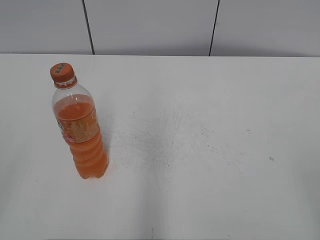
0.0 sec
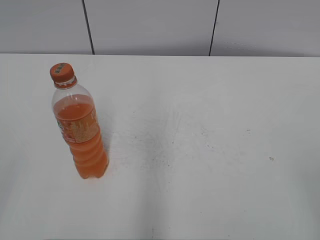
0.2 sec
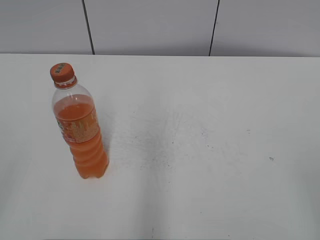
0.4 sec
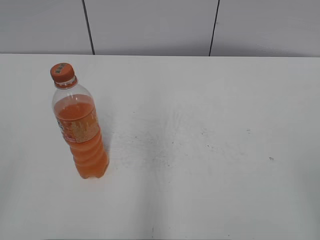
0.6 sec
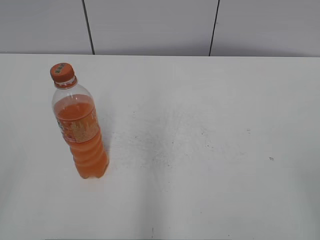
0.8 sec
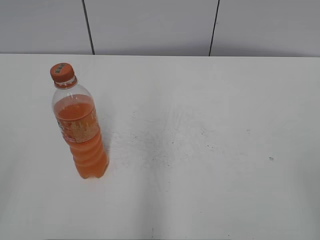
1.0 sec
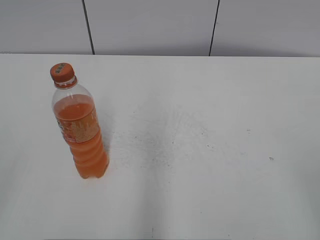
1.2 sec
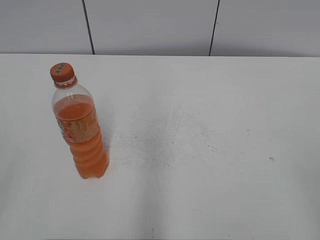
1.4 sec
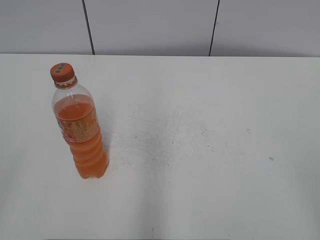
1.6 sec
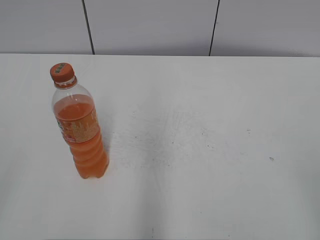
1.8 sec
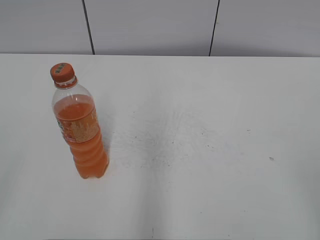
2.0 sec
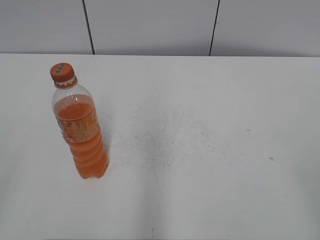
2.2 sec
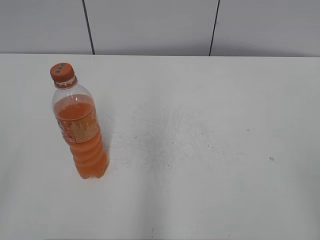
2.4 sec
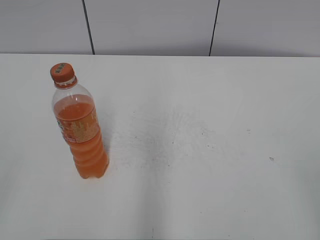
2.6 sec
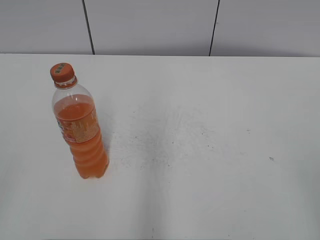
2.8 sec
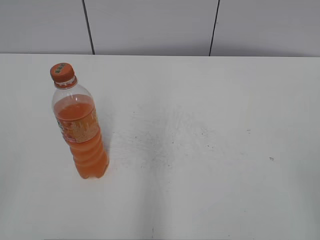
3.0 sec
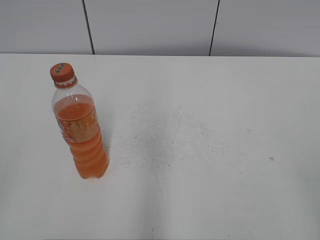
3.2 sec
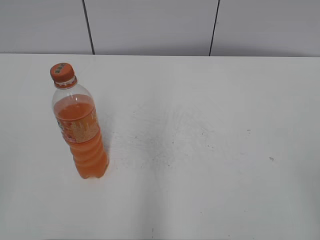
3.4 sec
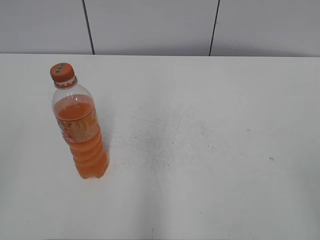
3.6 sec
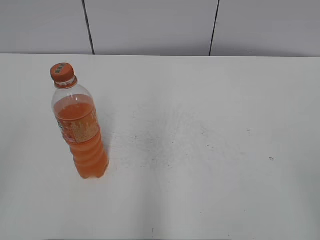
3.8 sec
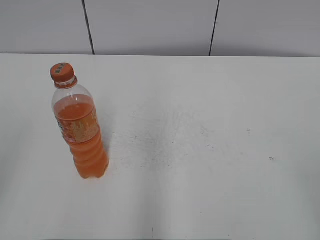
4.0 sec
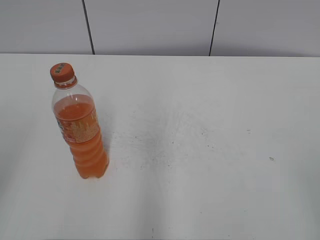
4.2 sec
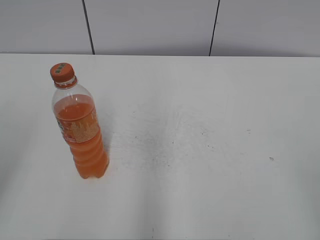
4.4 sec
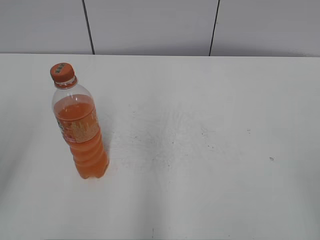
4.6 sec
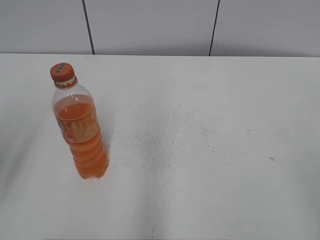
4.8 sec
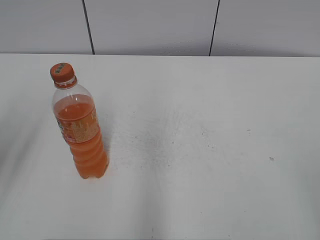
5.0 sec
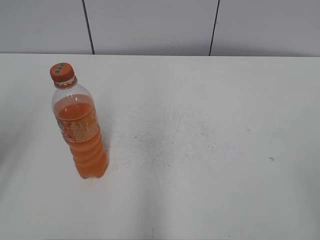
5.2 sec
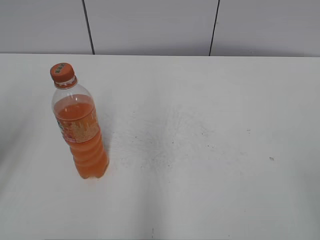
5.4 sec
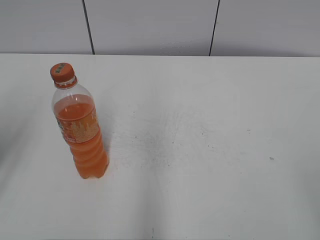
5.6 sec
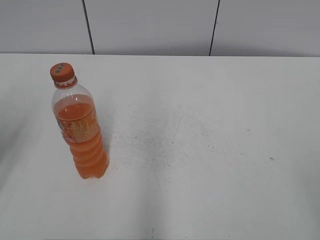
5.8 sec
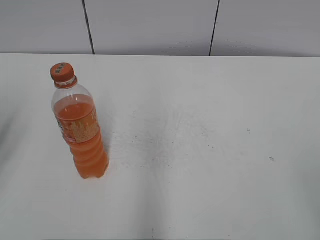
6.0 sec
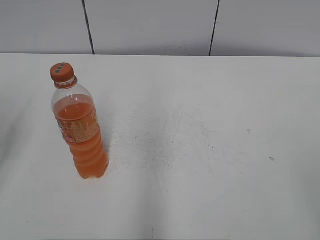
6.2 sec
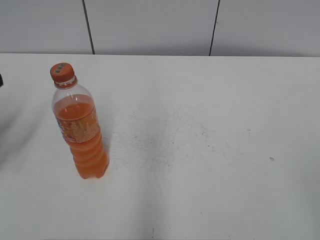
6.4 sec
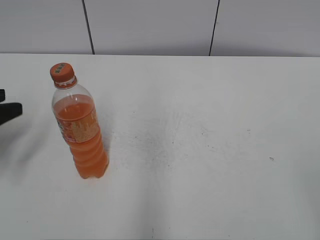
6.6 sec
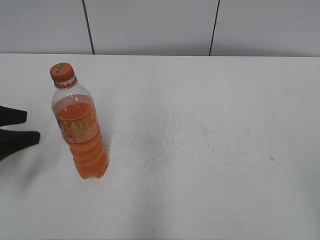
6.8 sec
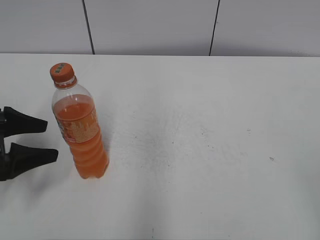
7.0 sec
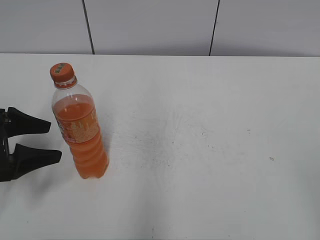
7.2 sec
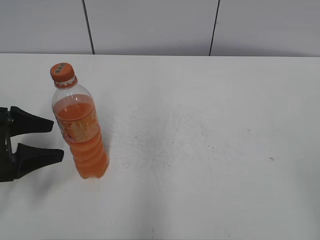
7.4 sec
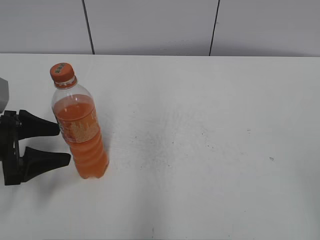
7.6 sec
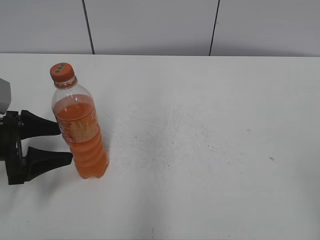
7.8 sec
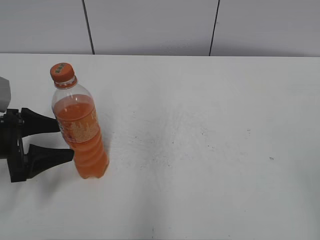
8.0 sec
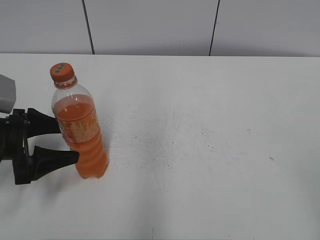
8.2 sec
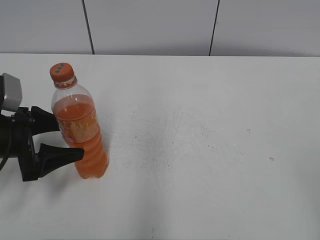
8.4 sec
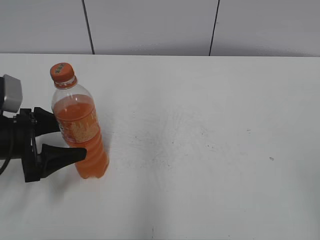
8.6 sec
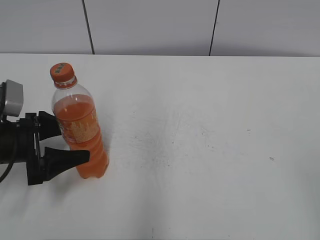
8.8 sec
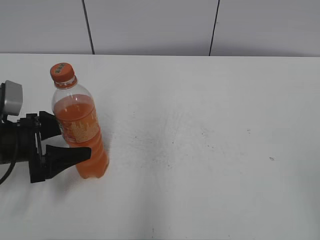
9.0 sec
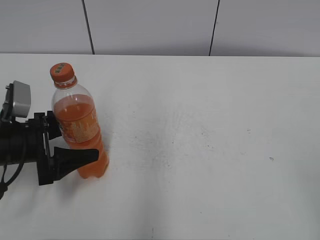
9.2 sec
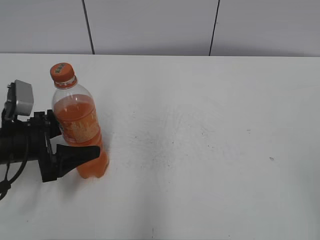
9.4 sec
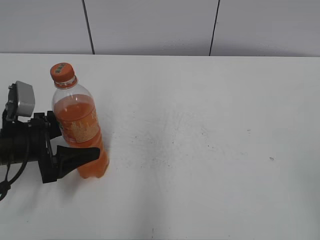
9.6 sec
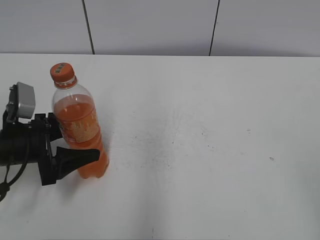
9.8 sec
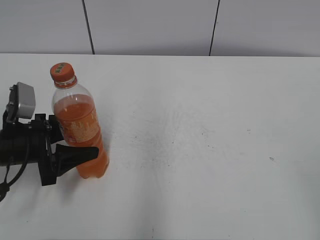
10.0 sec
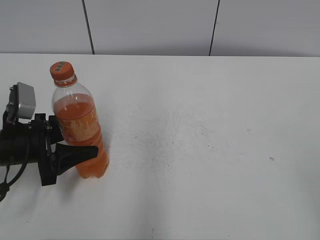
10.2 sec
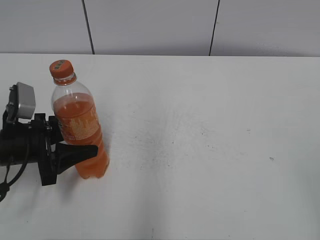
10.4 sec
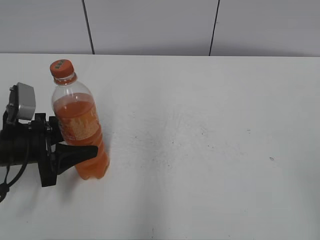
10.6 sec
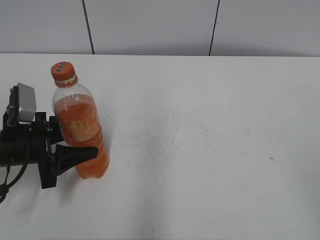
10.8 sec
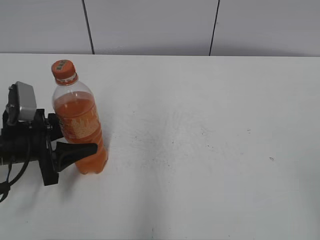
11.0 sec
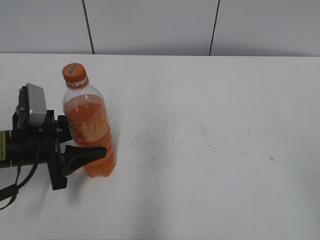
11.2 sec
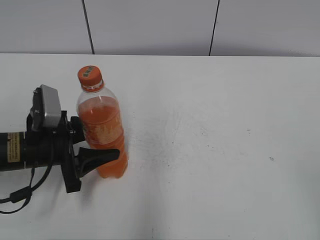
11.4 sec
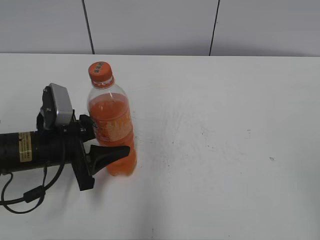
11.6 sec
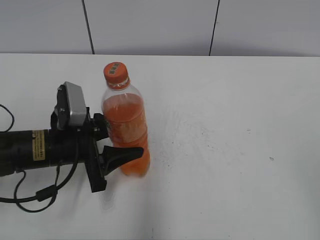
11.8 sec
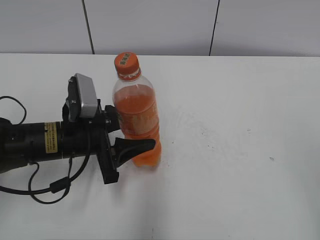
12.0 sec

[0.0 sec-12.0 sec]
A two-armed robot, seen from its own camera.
Step, 0.0 sec to 10.4 sec: Grab the Mirinda with the left hand.
1.6 sec to 3.0 sec: Both grippers stay put.
6.0 sec to 7.6 sec: The left gripper moves downward and to the right, roughly 10 cm, and opens its fingers.
7.6 sec to 9.0 sec: The grippers stay close to where they were, moving slightly.
9.0 sec to 10.4 sec: The left gripper closes up.
10.4 sec to 12.0 sec: The left gripper goes roughly 10 cm to the right.

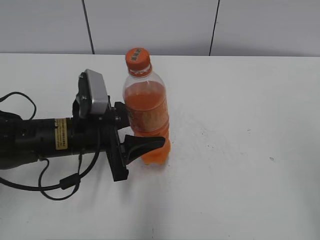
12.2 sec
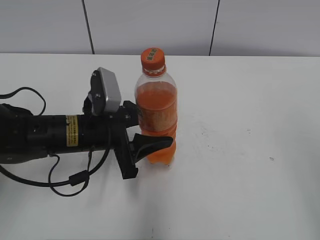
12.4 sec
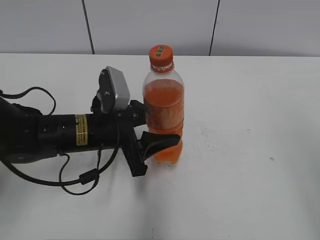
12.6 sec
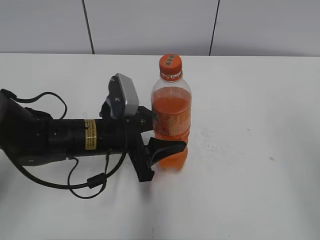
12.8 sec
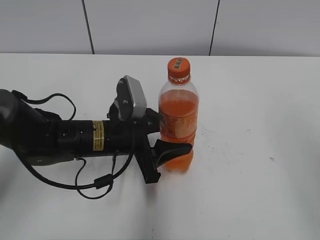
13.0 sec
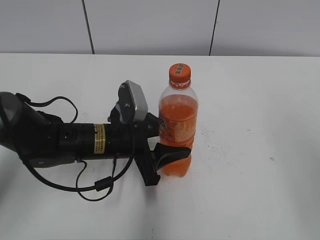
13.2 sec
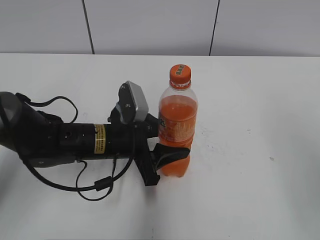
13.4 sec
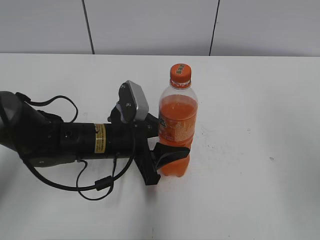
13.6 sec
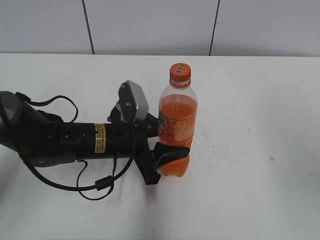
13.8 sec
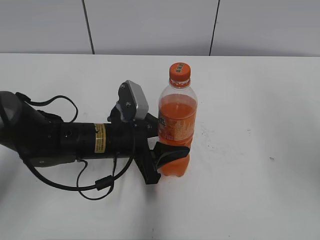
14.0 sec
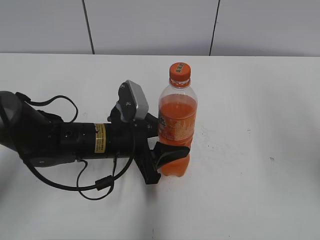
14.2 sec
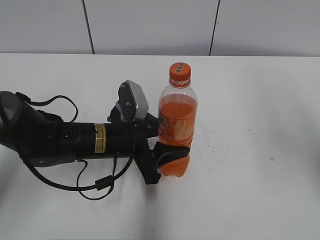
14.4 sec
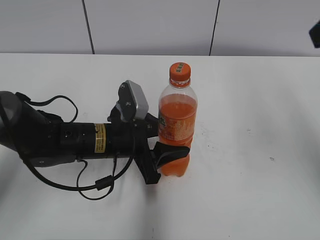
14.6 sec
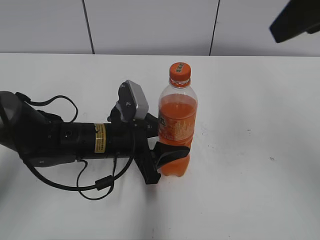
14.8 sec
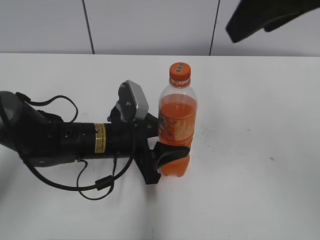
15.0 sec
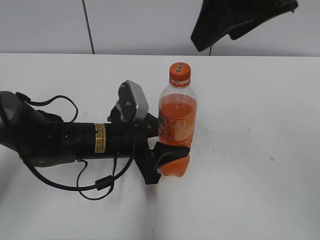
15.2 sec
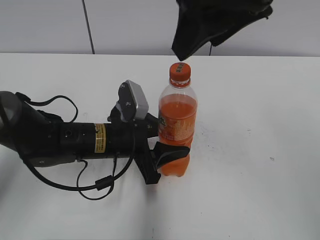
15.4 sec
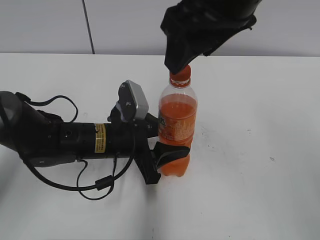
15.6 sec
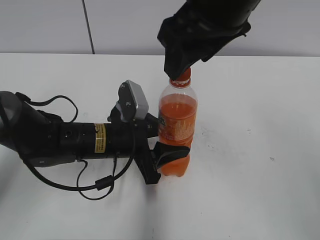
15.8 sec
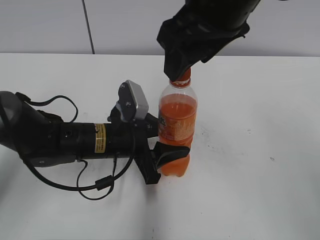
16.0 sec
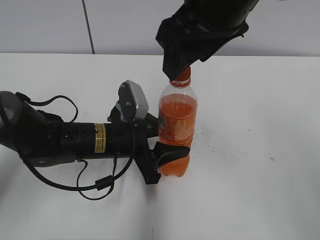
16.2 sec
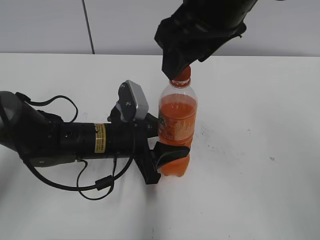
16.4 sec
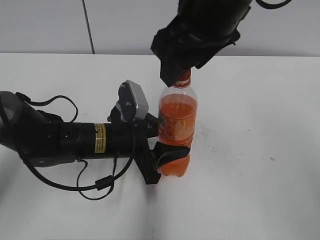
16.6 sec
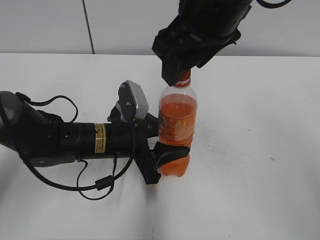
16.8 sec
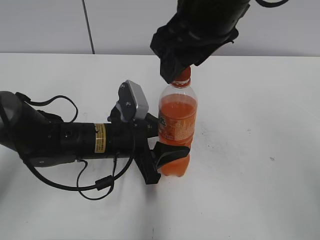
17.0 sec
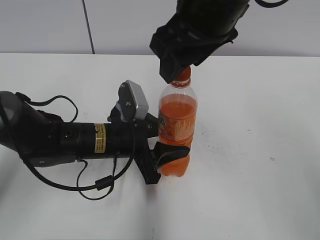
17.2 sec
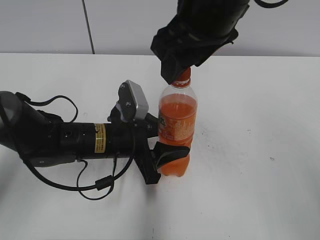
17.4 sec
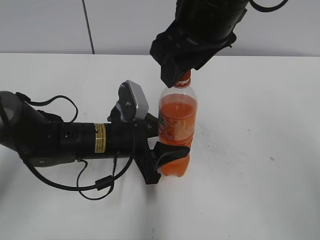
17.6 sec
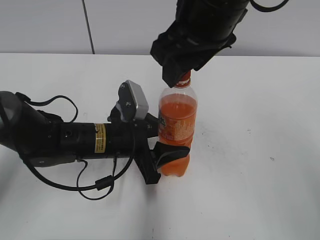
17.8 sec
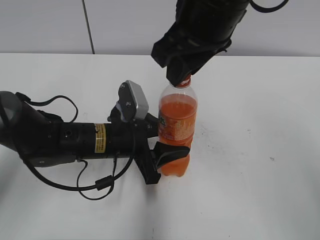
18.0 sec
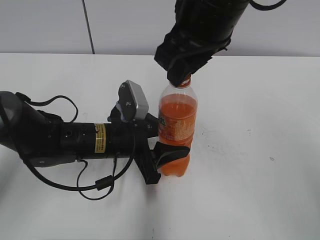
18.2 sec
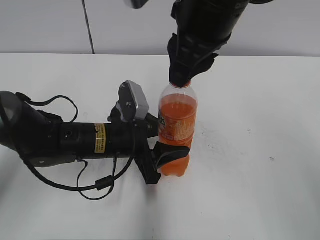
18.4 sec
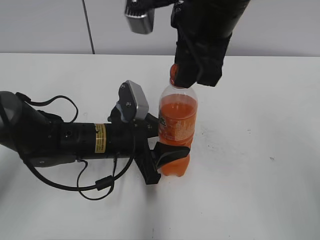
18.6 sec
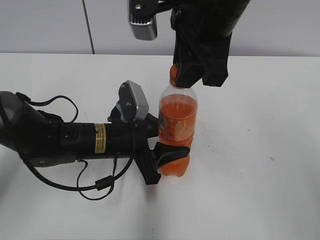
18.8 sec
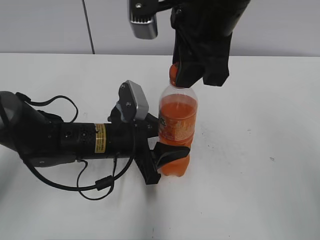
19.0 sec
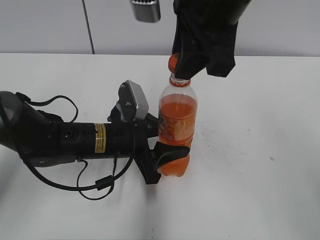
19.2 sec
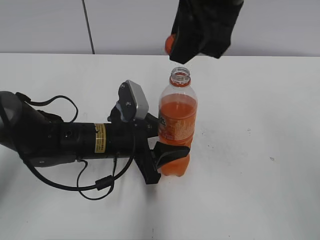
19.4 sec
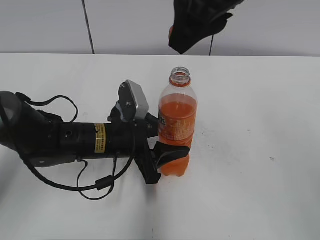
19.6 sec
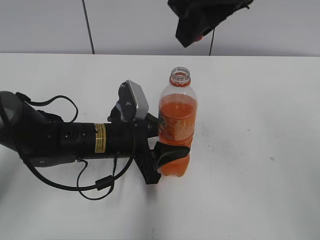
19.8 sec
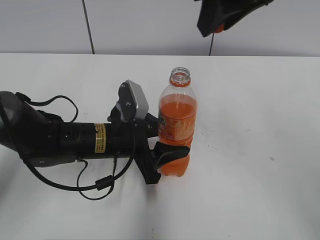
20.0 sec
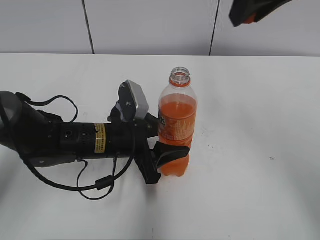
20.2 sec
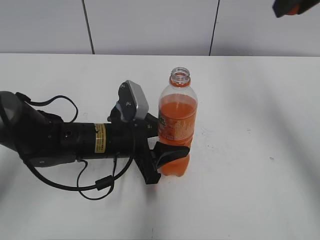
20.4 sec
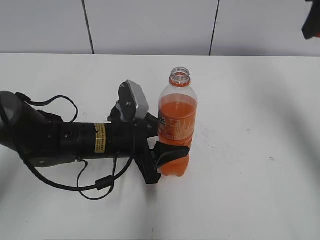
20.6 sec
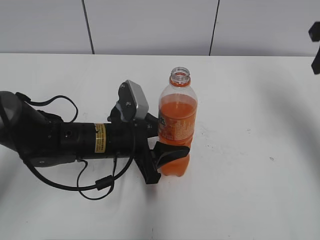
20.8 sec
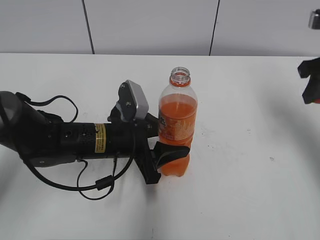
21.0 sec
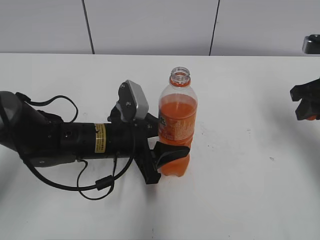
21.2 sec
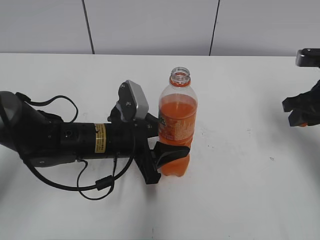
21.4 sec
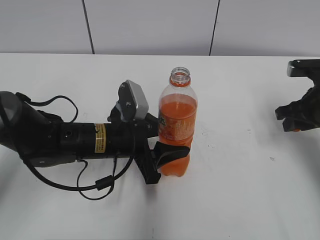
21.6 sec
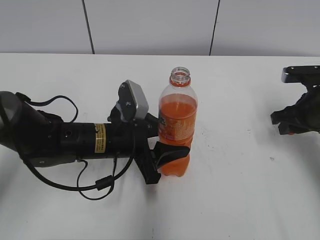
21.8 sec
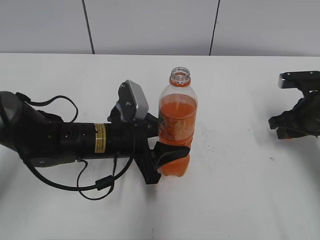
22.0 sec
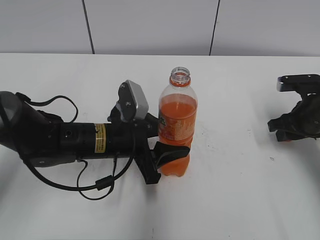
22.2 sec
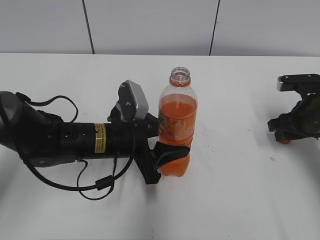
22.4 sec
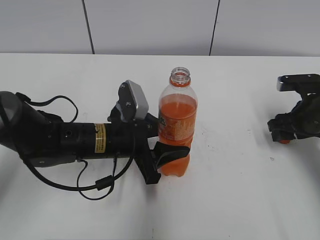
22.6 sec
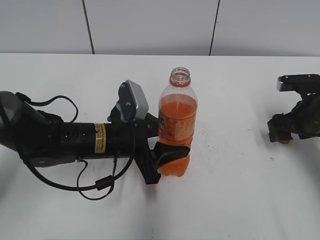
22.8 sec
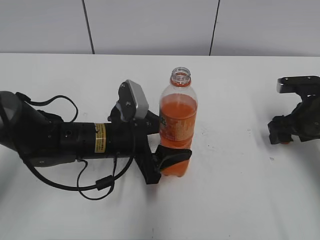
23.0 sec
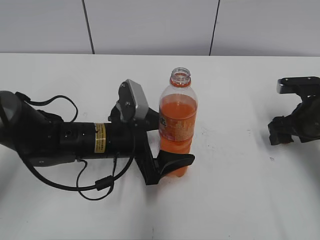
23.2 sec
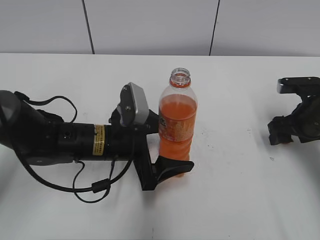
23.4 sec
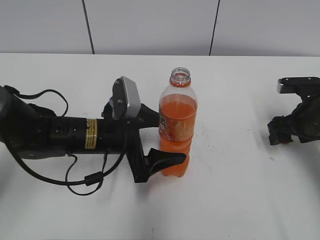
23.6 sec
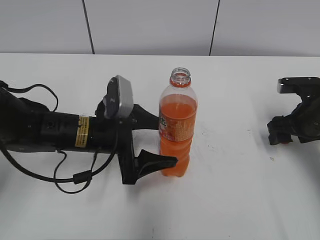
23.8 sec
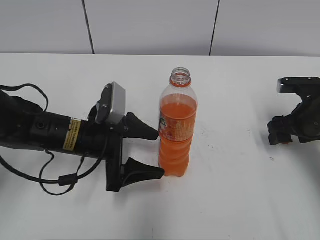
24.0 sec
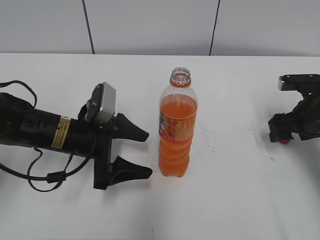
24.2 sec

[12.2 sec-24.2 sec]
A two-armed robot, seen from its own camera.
Step, 19.4 sec to 22.6 sec: Place the bottle cap on the right.
12.2 sec to 13.8 sec: The right gripper travels forward and upward by some 10 cm, while the left gripper ends up approximately 5 cm from where it was.
13.8 sec to 15.2 sec: The right gripper is displaced to the left and forward by about 20 cm.
15.2 sec to 16.6 sec: The right gripper shifts about 10 cm to the left and downward.
16.6 sec to 18.2 sec: The right gripper closes its fingers.
18.2 sec to 19.8 sec: The right gripper heads upward, covering roughly 5 cm.
19.8 sec to 21.2 sec: The right gripper shifts about 25 cm to the right and downward.
21.2 sec to 22.6 sec: The right gripper goes some 10 cm downward, and opens up.
22.6 sec to 24.2 sec: The left gripper heads to the left, covering approximately 5 cm, and opens; the right gripper opens.
